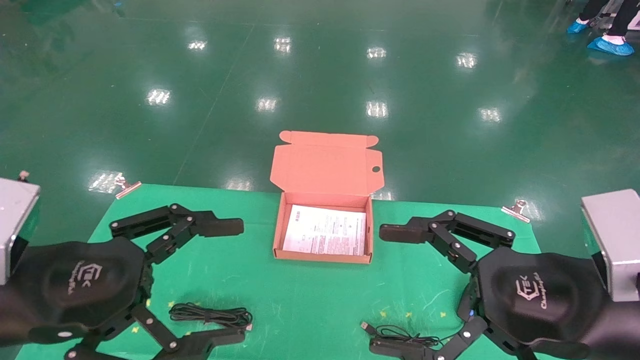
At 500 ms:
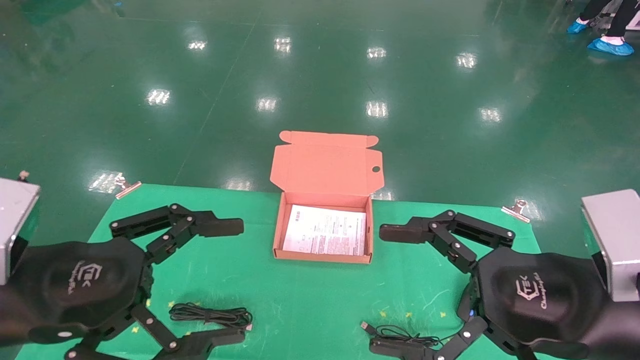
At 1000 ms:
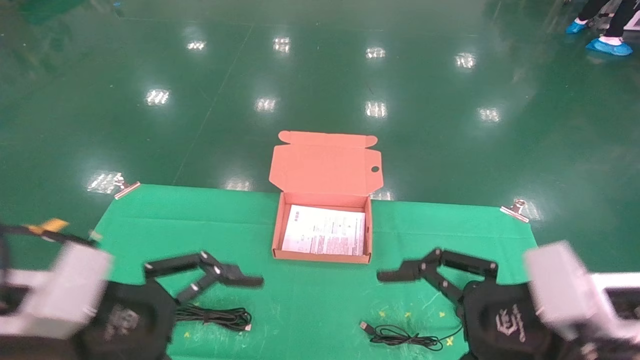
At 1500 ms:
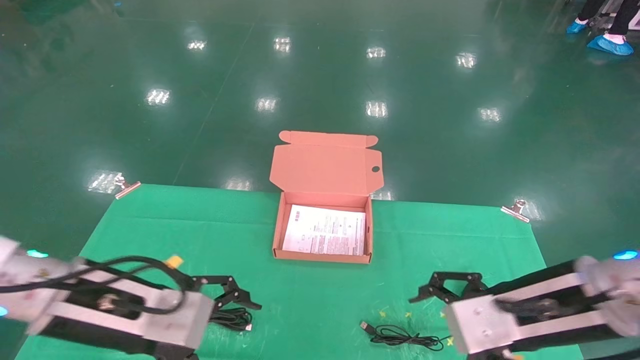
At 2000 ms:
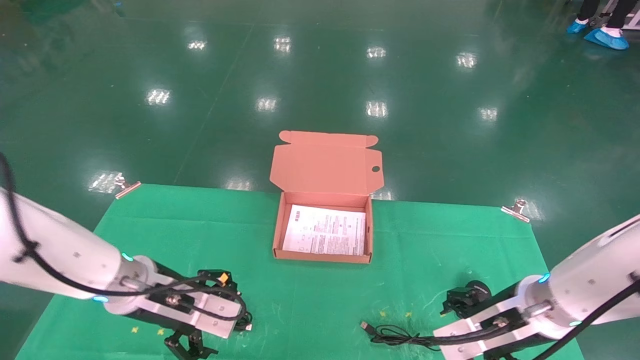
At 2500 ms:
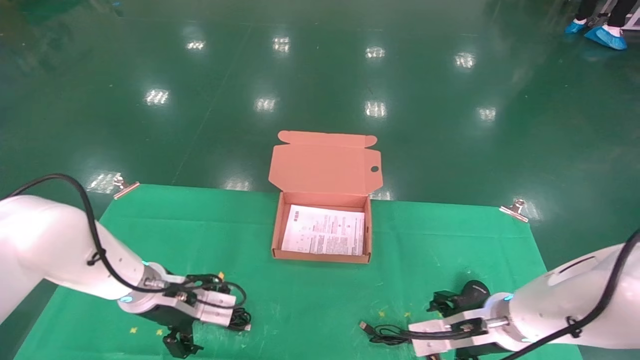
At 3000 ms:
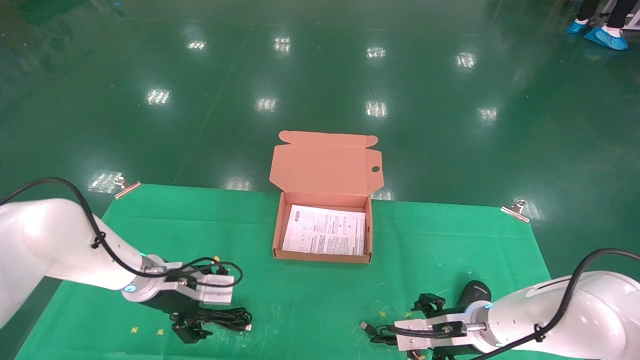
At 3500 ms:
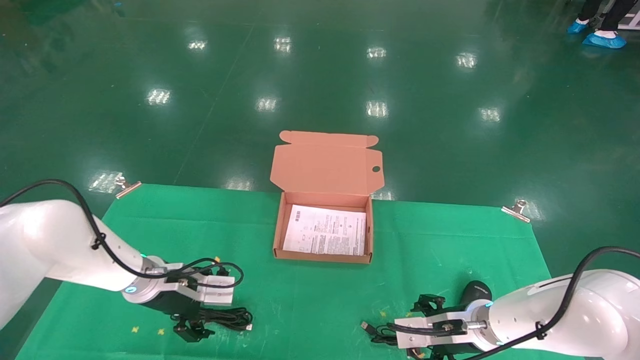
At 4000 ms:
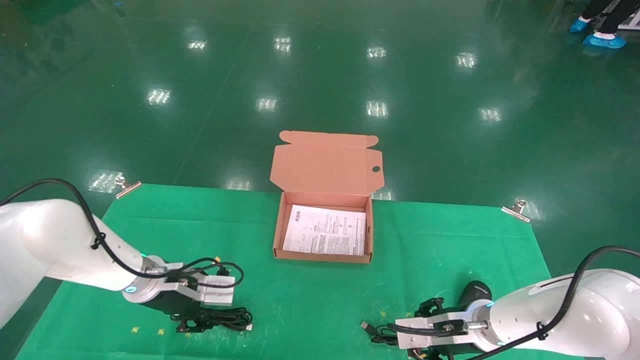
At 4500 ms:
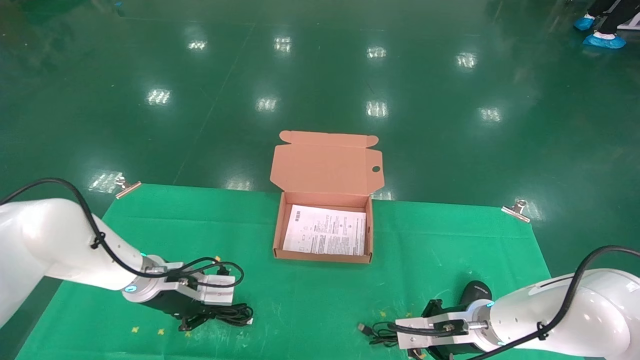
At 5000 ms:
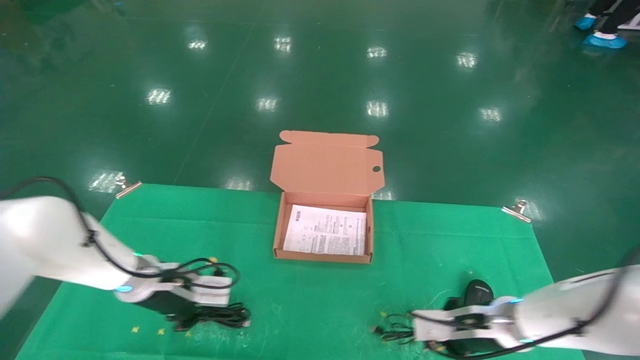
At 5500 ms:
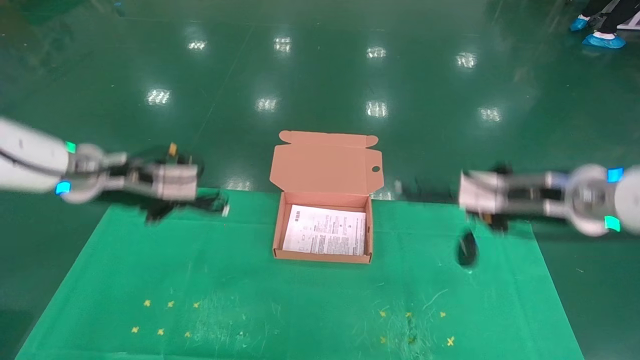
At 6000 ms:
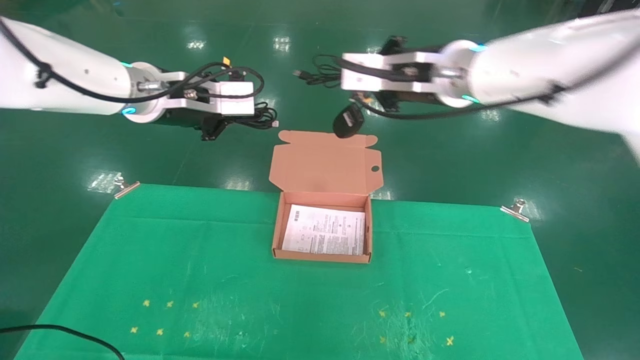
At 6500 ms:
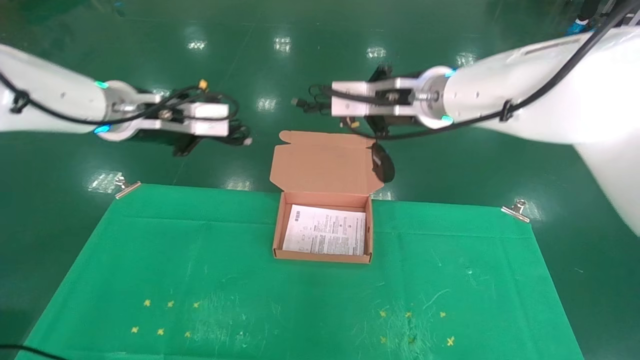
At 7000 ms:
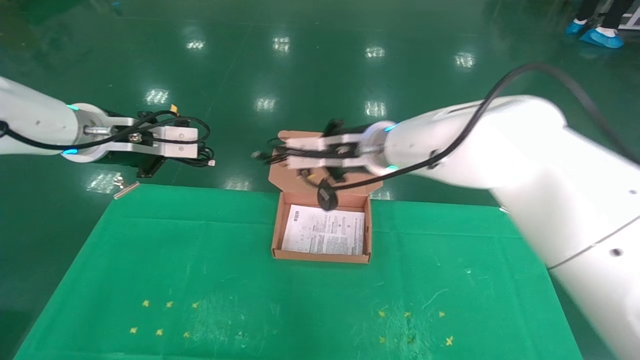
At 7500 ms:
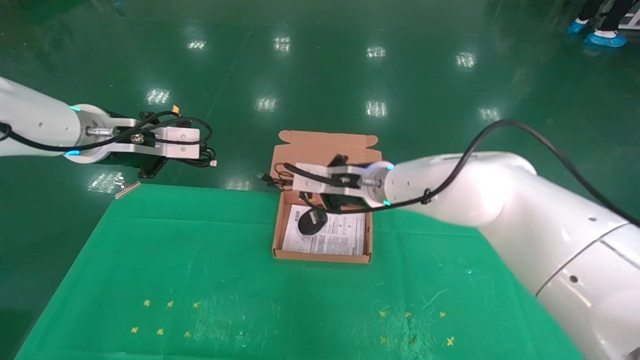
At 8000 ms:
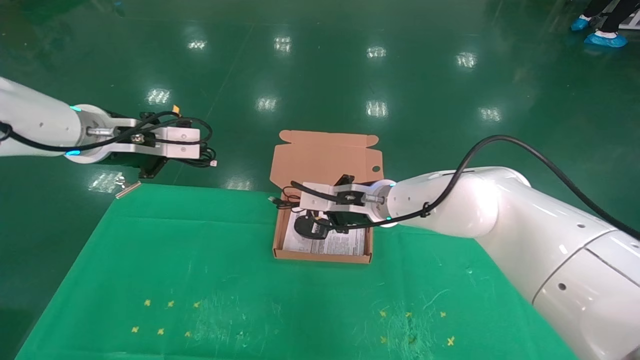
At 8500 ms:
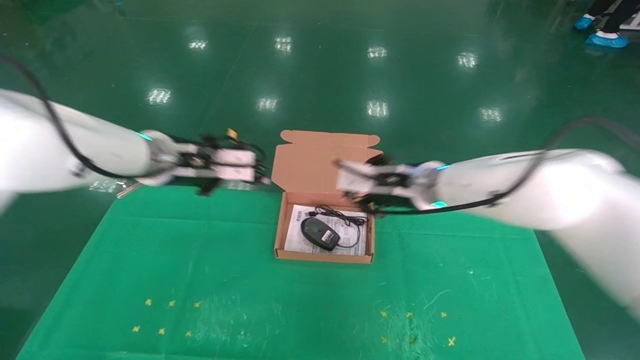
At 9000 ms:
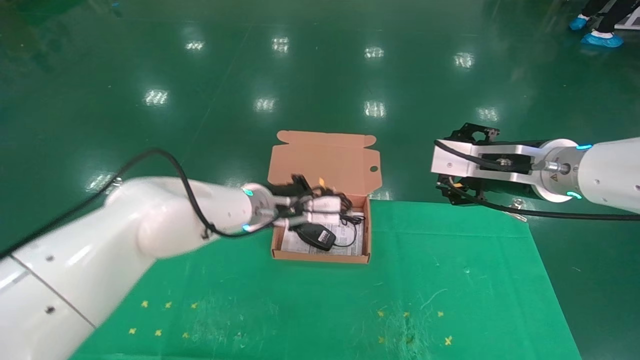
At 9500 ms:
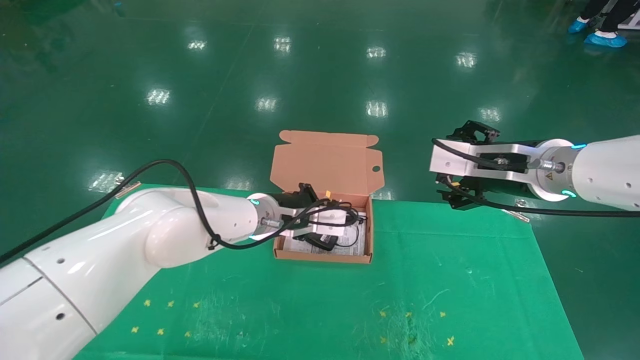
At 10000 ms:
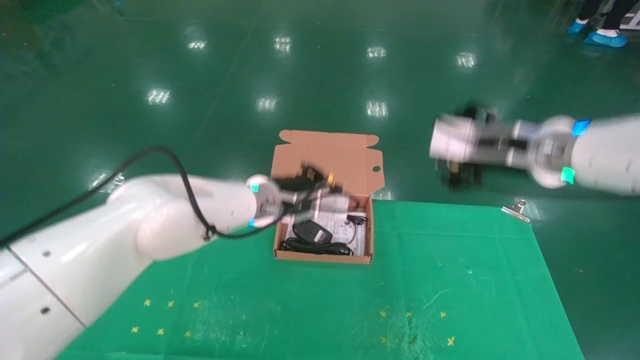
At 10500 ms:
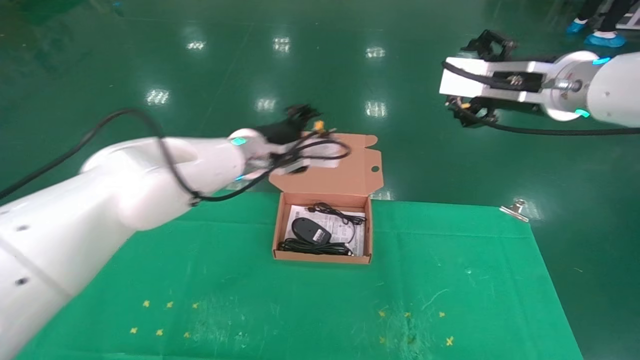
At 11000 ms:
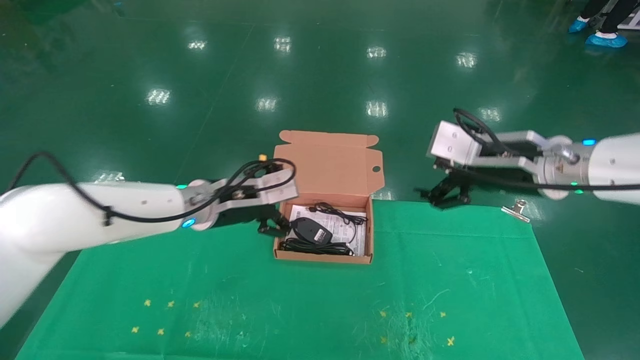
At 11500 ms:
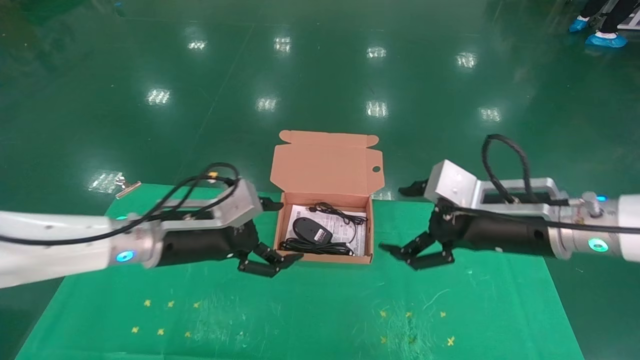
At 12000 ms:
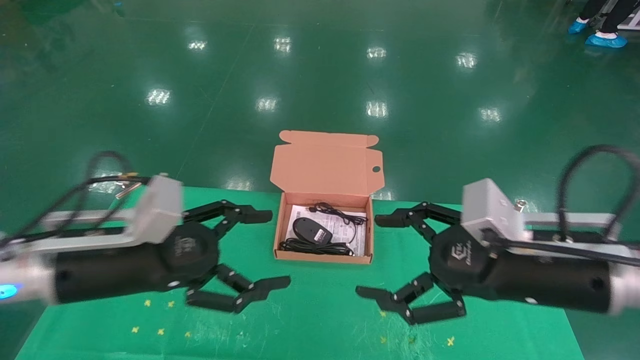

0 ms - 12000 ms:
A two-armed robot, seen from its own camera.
Task of the whole recording: grasp data cable left put into box grasp mouse right put into box.
Step, 1000 ms - 5500 ms: Grab and pick up both the mouse and power cord from the accessory packaging area at the same time.
Step, 6000 ms - 11500 ms: Place the mouse and power cord into the box.
0 ms - 2000 ms: Both grippers travel together forward and downward, some 20 cm.
2000 ms - 4000 ms: The left gripper moves forward, some 10 cm, and closes up. Meanwhile the right gripper is displaced downward and forward by roughly 10 cm, and closes.
4000 ms - 6000 ms: The grippers both shift upward by about 30 cm. The right gripper closes up, while the left gripper closes.
6000 ms - 8000 ms: The right gripper heads downward and forward, covering roughly 20 cm, while the left gripper shifts approximately 5 cm to the left.
8000 ms - 10000 ms: The left gripper heads to the right and downward, covering roughly 20 cm, while the right gripper travels to the right, upward and backward by about 25 cm, and opens.
10000 ms - 12000 ms: The right gripper travels downward and backward by some 15 cm. The left gripper goes about 25 cm backward and to the left, and opens up.
